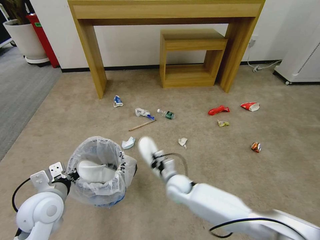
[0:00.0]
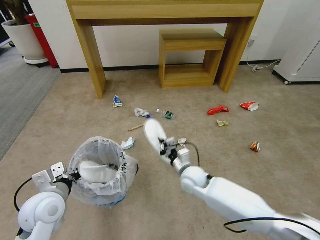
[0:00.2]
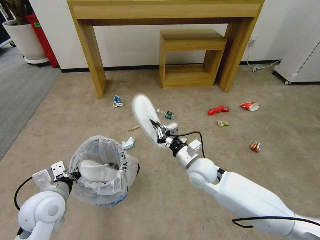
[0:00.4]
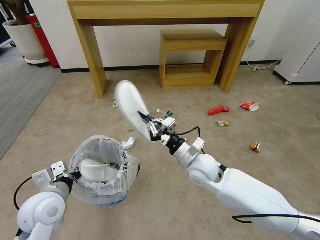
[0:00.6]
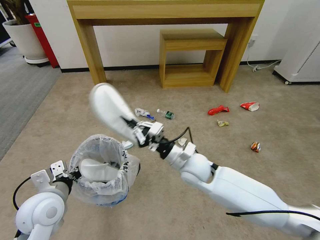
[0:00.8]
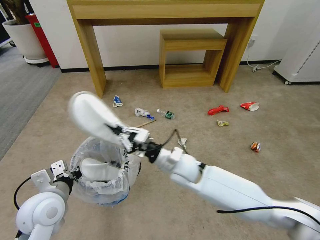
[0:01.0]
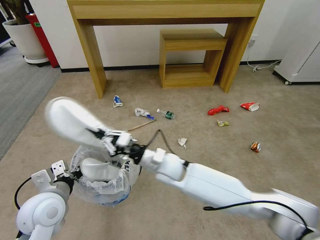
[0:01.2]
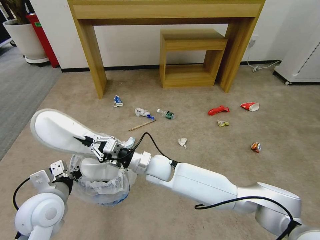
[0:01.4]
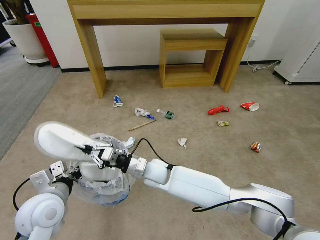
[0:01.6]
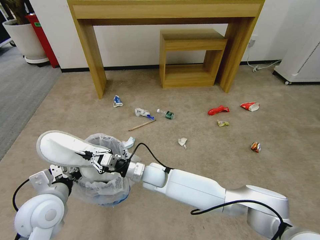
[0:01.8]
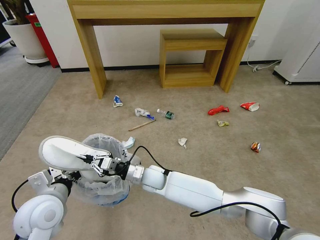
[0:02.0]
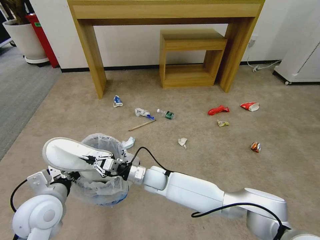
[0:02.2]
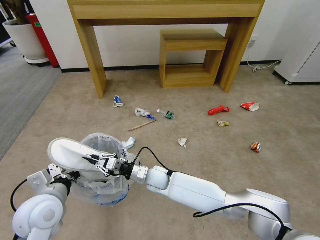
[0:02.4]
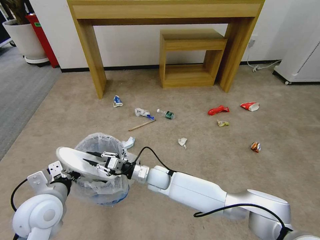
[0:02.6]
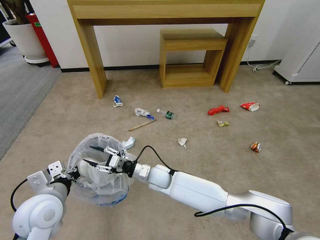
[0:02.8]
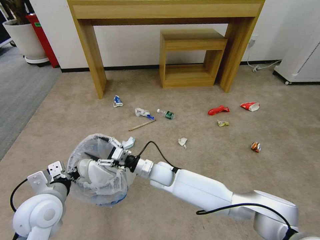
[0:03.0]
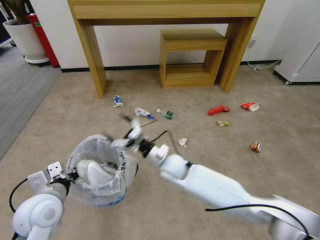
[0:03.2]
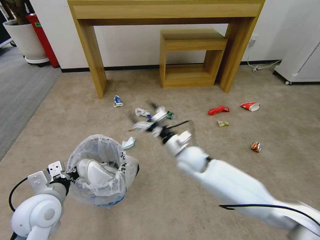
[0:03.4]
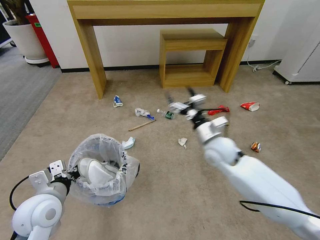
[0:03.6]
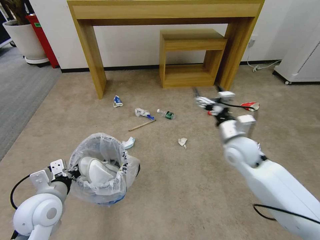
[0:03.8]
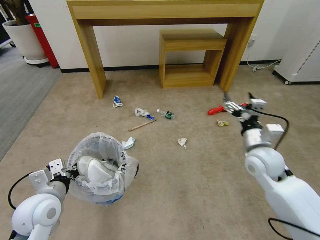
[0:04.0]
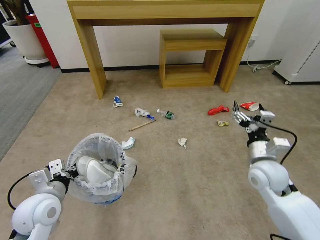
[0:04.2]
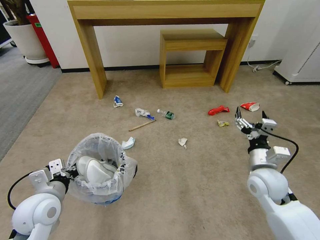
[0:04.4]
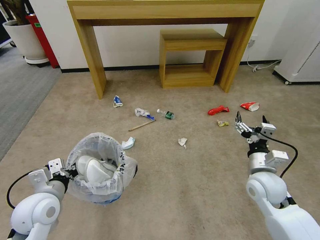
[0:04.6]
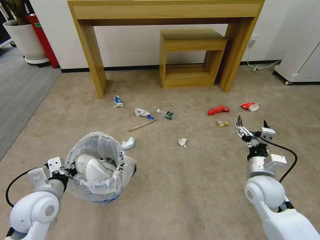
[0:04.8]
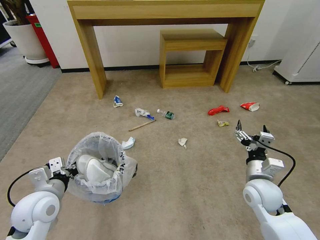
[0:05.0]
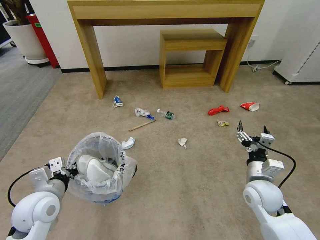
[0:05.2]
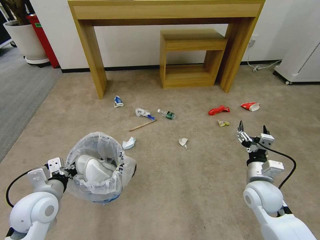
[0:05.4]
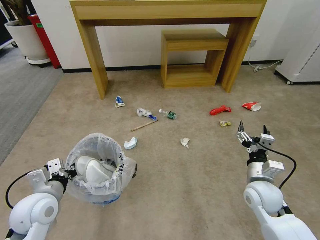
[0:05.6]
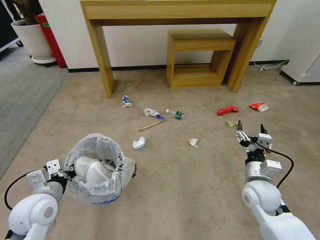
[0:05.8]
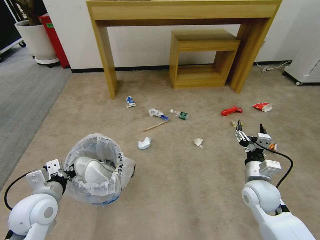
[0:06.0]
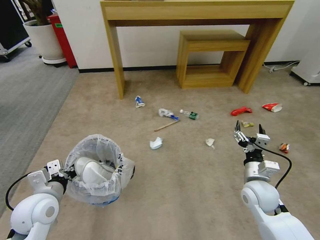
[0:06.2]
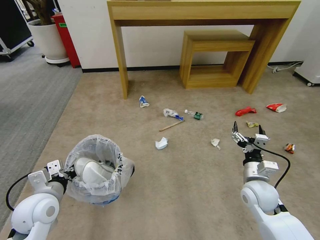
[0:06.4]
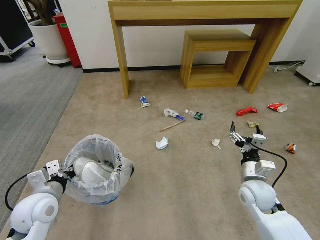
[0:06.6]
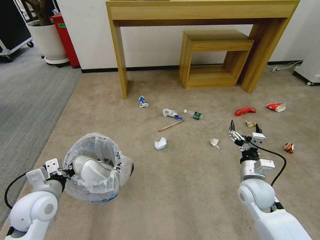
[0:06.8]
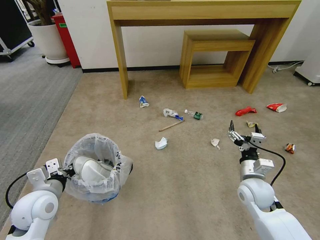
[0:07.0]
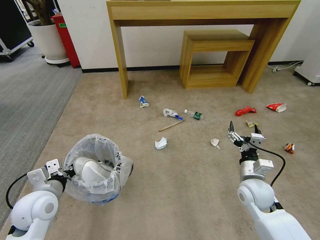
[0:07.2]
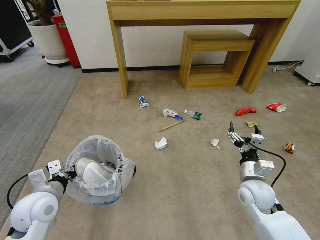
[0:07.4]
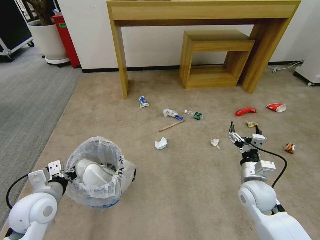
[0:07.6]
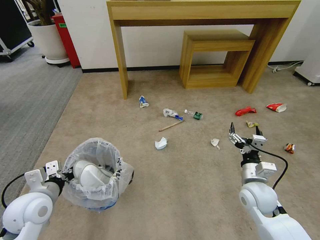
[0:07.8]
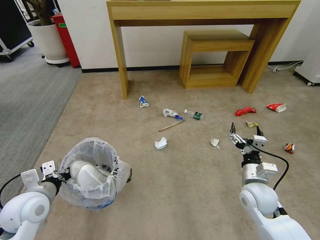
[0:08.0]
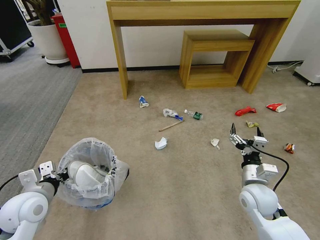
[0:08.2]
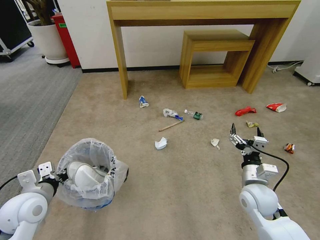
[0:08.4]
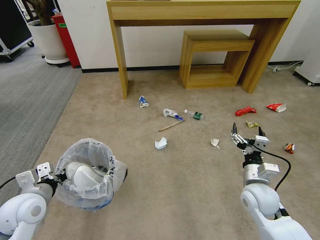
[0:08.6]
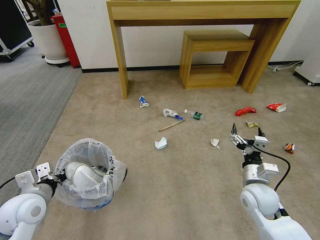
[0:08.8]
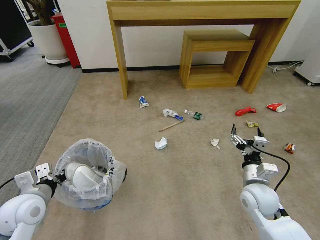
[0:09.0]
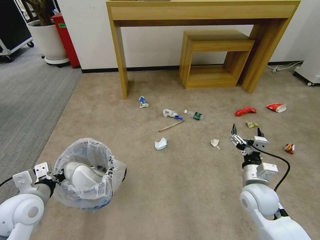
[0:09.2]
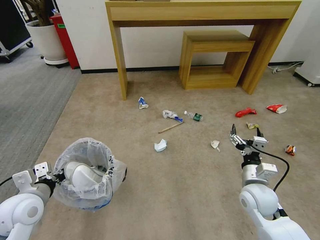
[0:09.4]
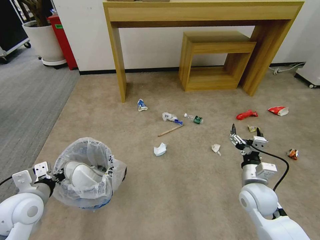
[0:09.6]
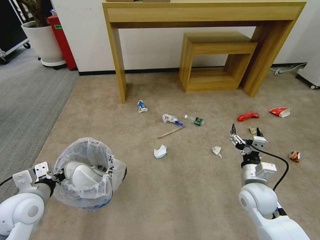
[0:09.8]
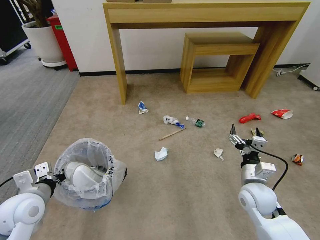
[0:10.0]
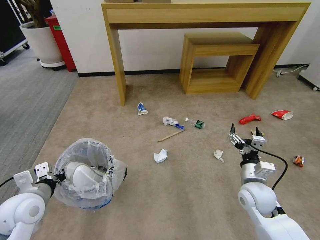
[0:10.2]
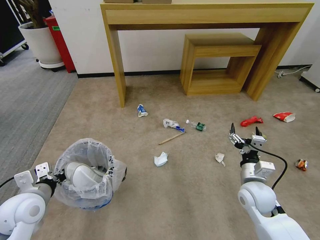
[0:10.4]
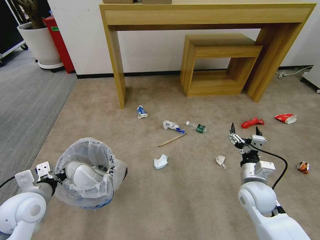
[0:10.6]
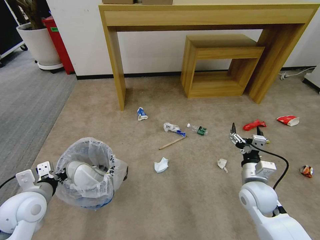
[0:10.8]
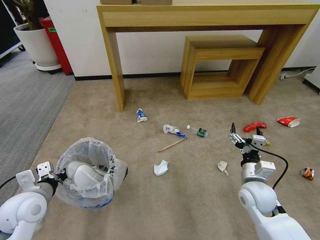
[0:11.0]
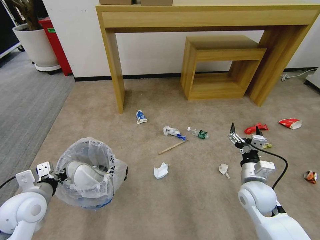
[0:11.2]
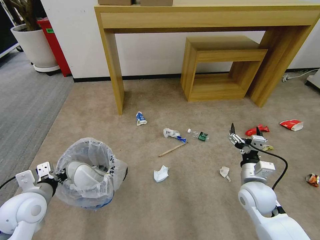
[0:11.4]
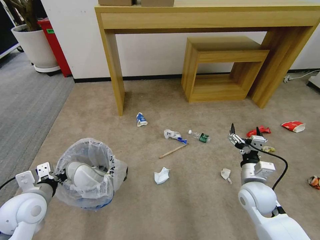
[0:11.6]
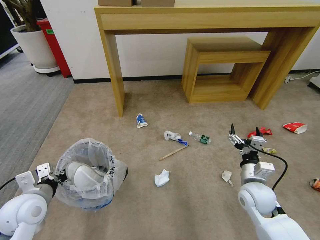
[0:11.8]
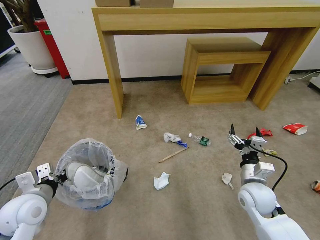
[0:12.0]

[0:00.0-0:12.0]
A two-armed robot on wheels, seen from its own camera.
Task of the whole recording: Pick up the trash bin and place the garbage on the floor into it.
0:00.0 to 0:01.6: The right gripper goes about 15 cm to the left and upward.
0:01.6 to 0:03.0: The right gripper opens.
0:03.0 to 0:04.4: The right gripper heads to the right, covering about 30 cm.
0:04.4 to 0:06.0: The right gripper shifts approximately 5 cm downward.
0:07.6 to 0:09.0: The grippers make only small movements.

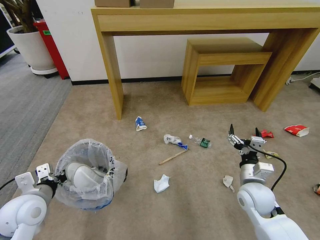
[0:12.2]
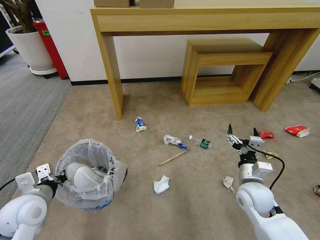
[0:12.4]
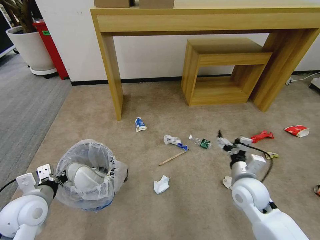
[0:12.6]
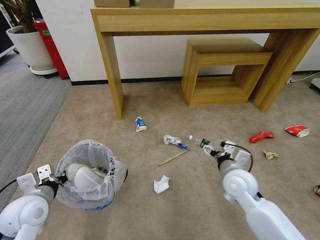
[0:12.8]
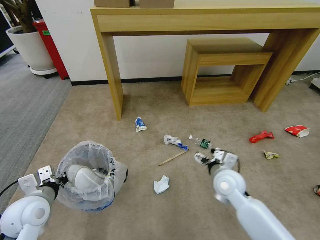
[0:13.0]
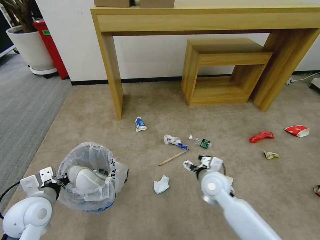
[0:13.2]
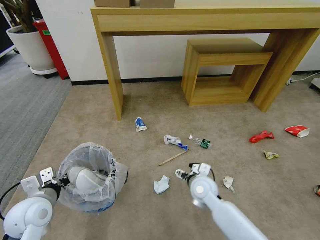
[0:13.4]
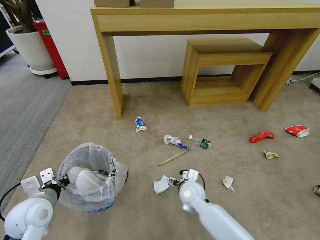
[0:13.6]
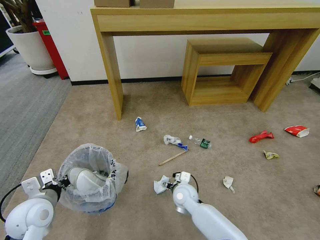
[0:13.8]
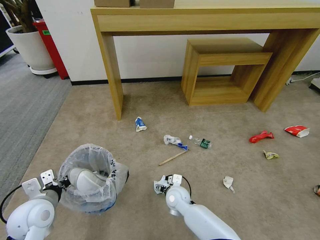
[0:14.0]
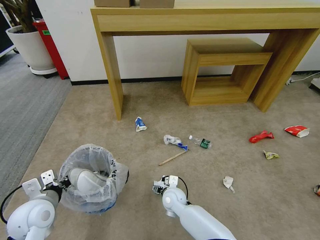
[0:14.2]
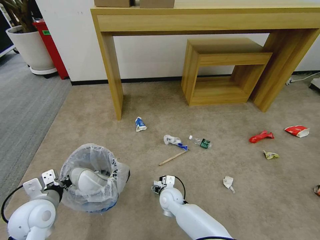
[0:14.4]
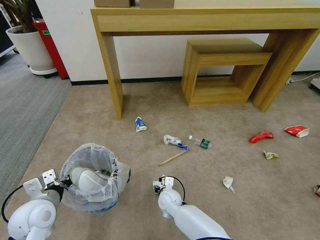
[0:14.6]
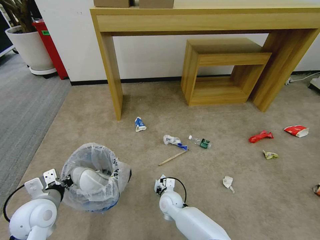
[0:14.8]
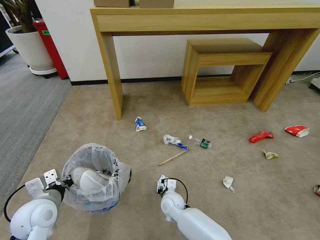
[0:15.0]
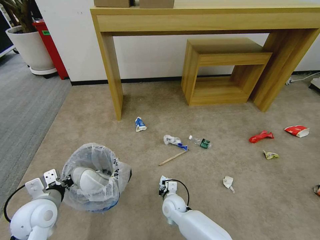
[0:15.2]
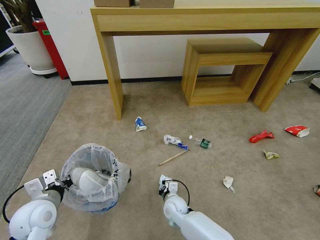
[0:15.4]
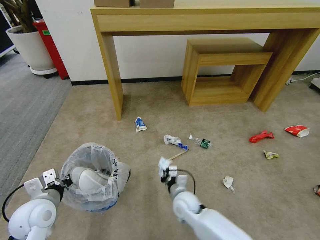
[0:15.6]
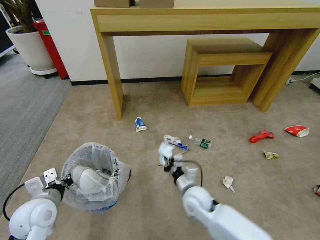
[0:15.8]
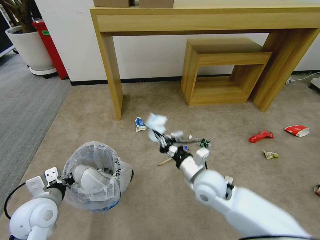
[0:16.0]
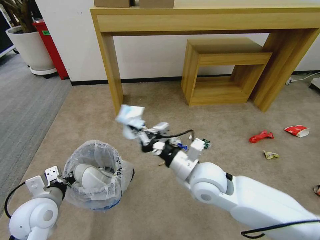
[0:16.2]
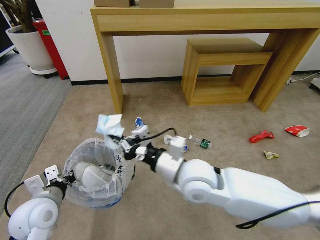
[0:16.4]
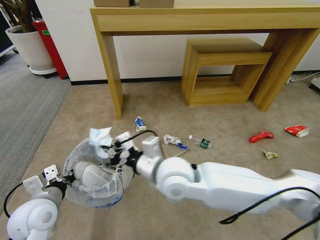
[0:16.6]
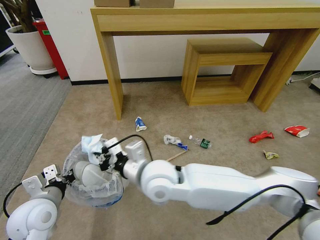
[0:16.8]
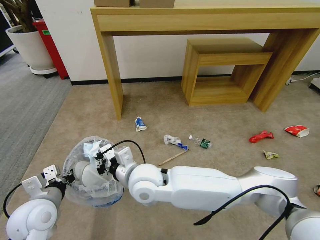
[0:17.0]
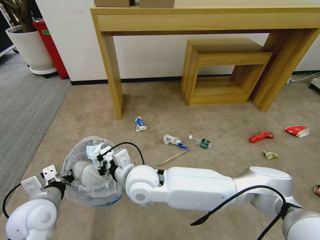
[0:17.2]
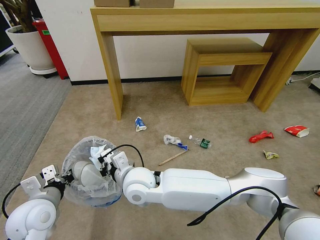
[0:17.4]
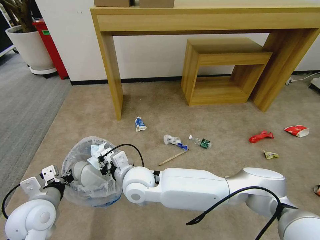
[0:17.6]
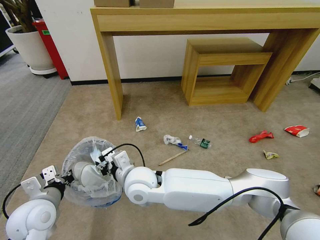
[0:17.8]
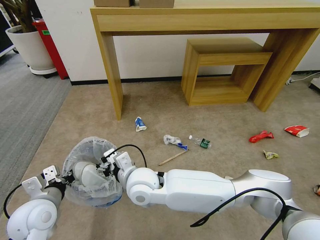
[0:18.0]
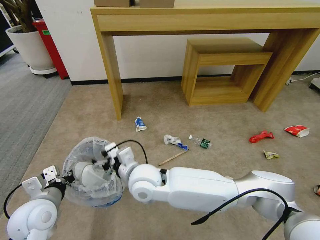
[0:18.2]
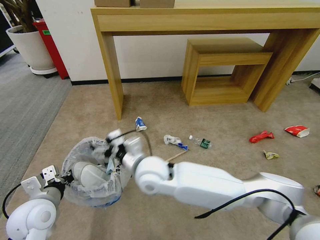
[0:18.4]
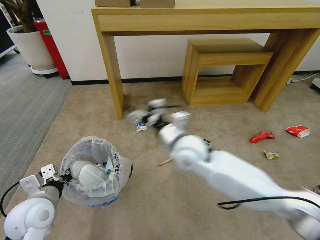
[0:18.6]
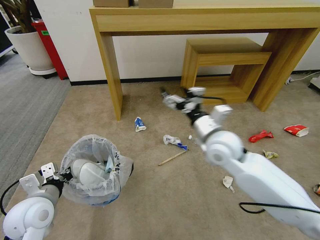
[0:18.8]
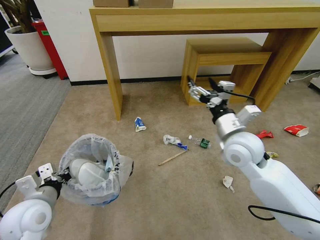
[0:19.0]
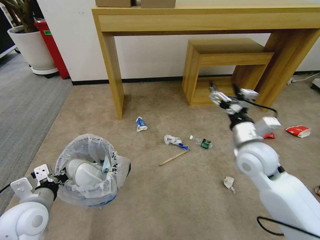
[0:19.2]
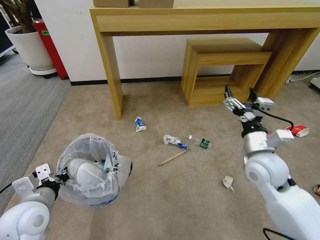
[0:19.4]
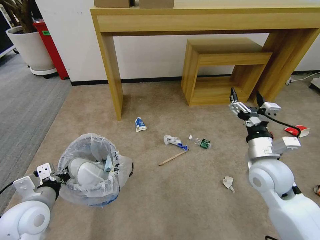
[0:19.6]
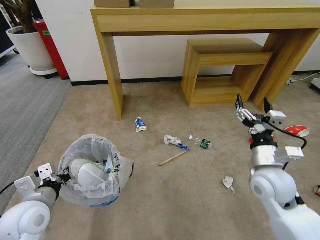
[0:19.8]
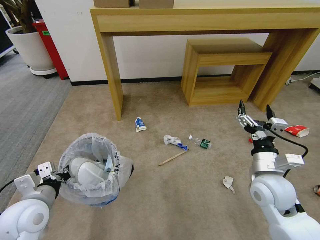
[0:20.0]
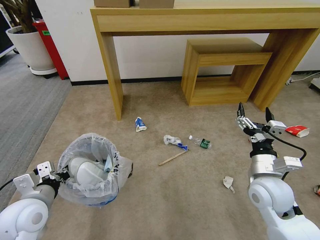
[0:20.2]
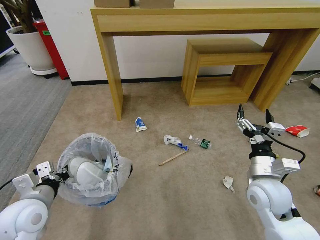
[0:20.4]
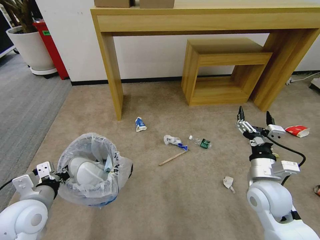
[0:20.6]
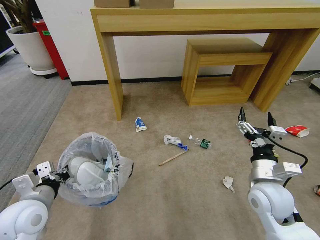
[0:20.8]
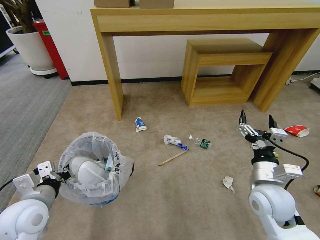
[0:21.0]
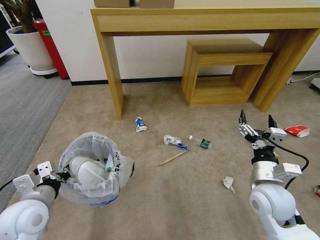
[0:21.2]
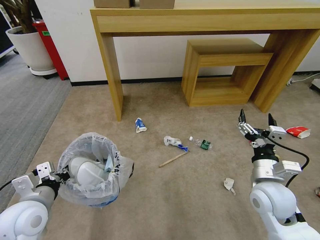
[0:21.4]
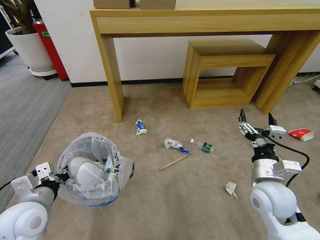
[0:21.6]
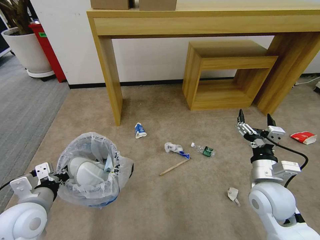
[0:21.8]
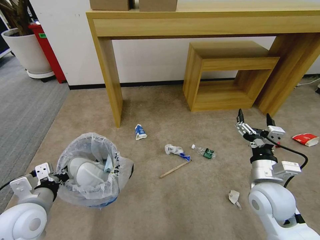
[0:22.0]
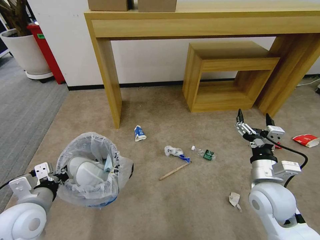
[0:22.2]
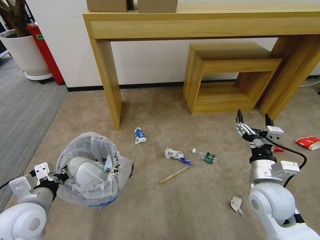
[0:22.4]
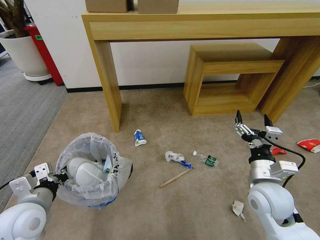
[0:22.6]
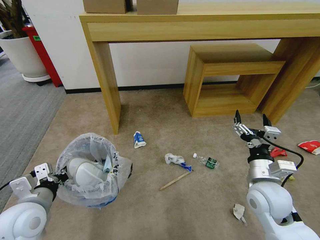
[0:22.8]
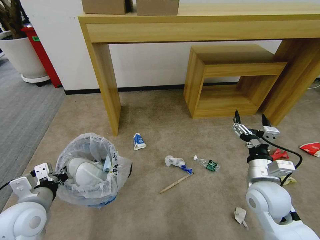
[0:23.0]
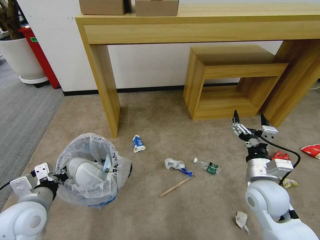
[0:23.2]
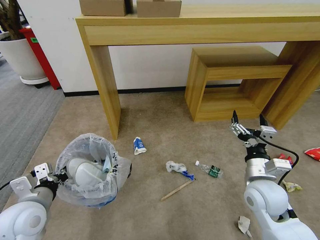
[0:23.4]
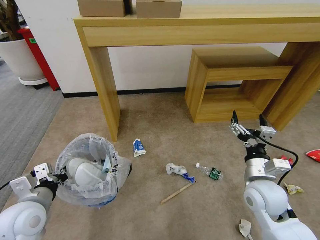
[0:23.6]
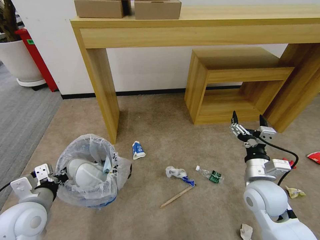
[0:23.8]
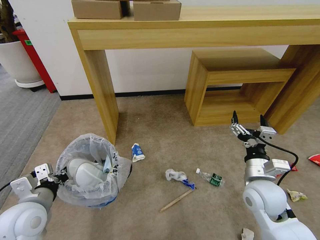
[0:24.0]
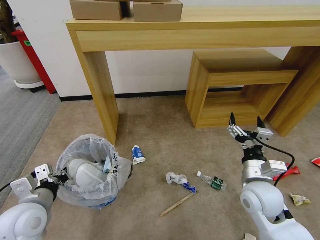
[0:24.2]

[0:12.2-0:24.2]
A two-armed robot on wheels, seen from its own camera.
Task of the whole recording: Pick up the trash bin and place the garbage on the floor into it.
0:12.2 to 0:13.8: The right gripper shifts approximately 20 cm to the left and downward.
0:13.8 to 0:15.2: The right gripper goes some 10 cm downward, and closes its fingers.
0:15.2 to 0:16.6: The right gripper heads upward, covering roughly 35 cm.
0:16.6 to 0:18.2: The right gripper goes about 10 cm to the left and downward, and opens up.
0:18.2 to 0:19.8: The right gripper travels to the right by approximately 35 cm.
0:19.8 to 0:21.2: The grippers move only a little.
